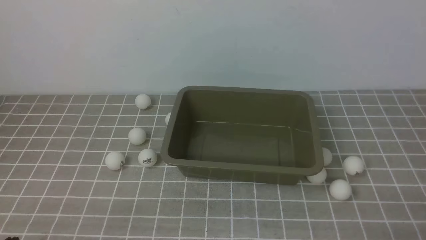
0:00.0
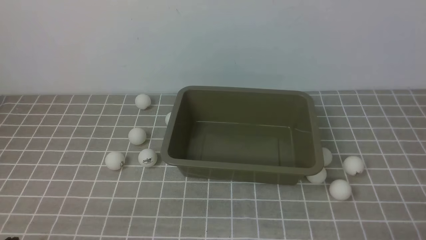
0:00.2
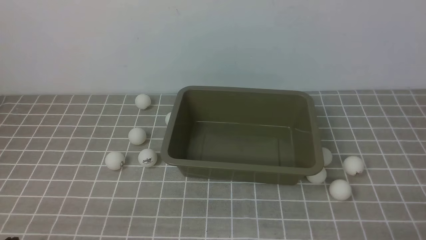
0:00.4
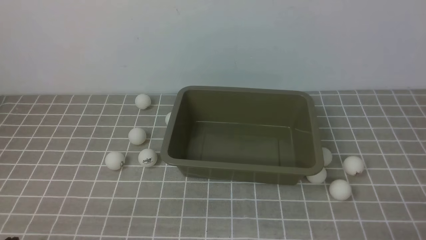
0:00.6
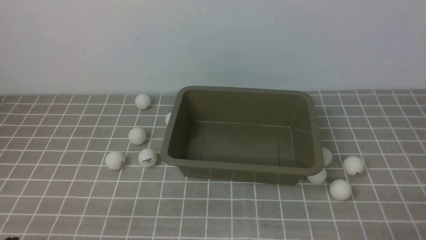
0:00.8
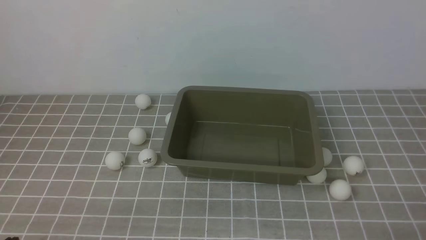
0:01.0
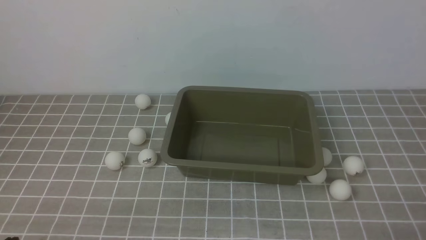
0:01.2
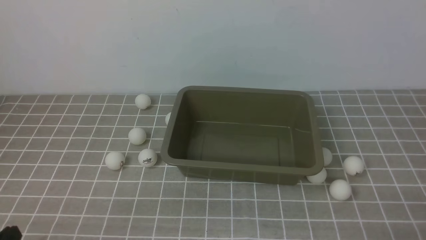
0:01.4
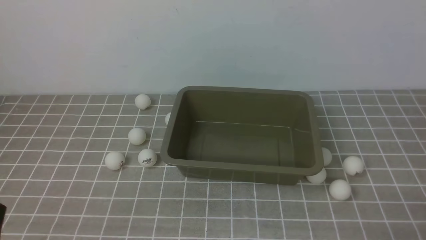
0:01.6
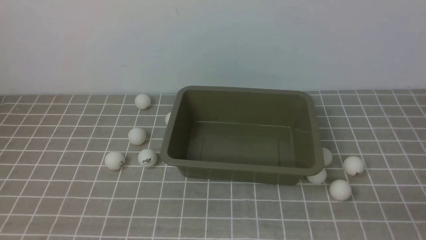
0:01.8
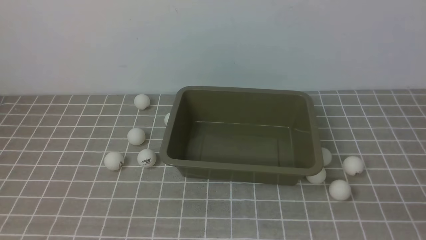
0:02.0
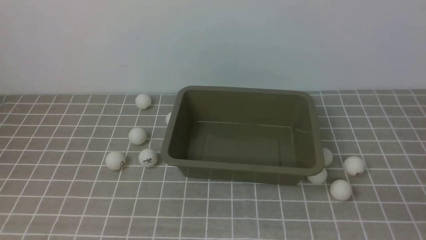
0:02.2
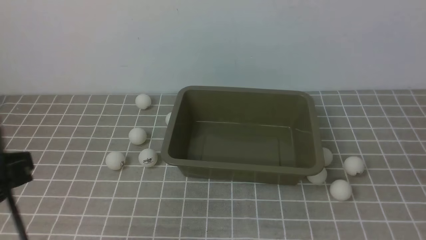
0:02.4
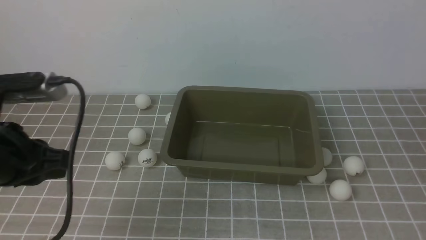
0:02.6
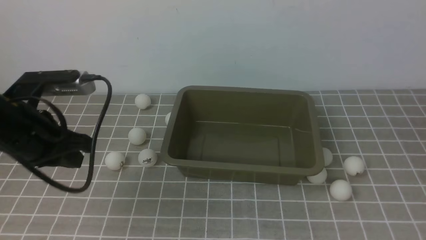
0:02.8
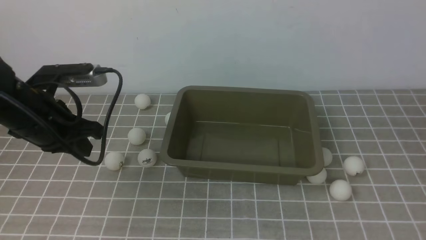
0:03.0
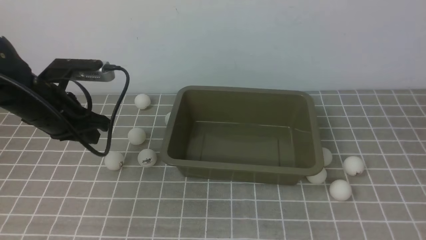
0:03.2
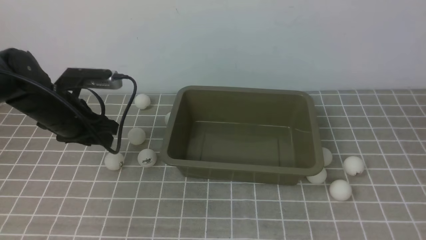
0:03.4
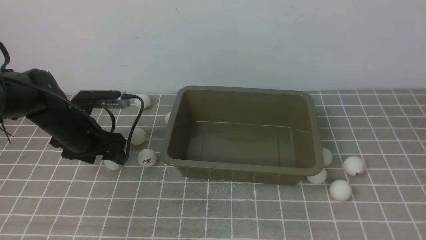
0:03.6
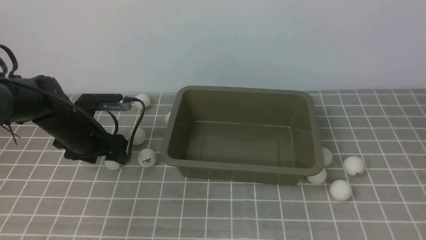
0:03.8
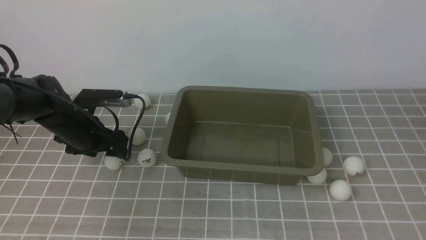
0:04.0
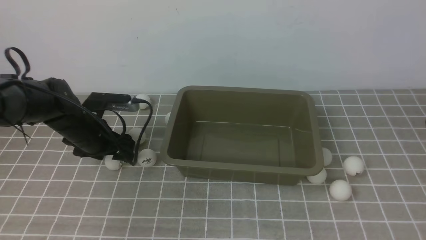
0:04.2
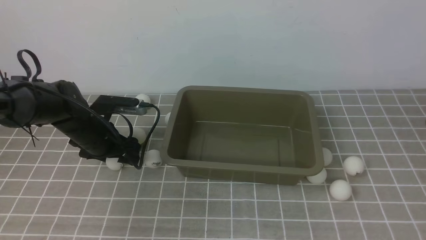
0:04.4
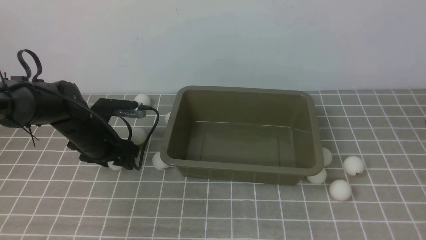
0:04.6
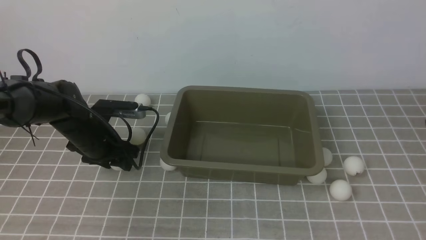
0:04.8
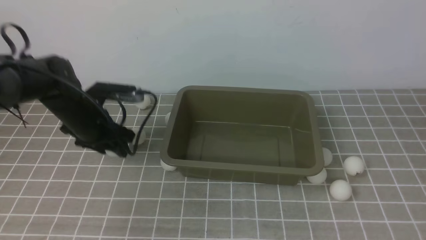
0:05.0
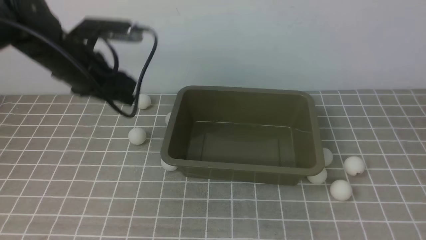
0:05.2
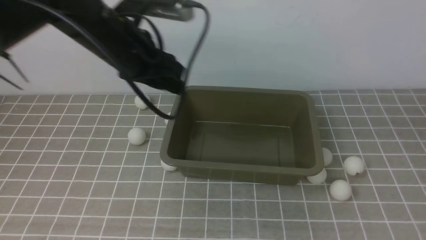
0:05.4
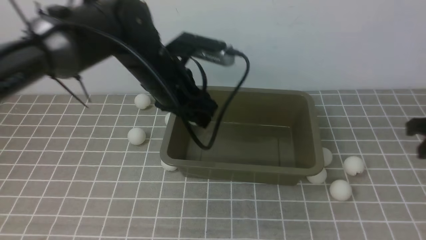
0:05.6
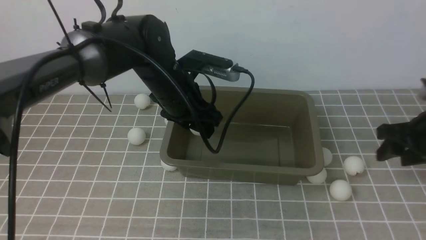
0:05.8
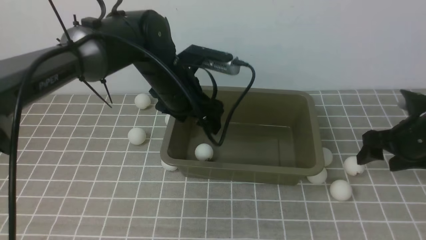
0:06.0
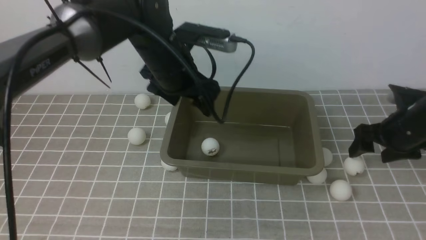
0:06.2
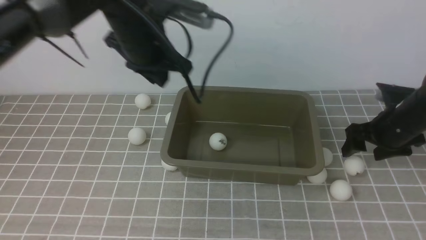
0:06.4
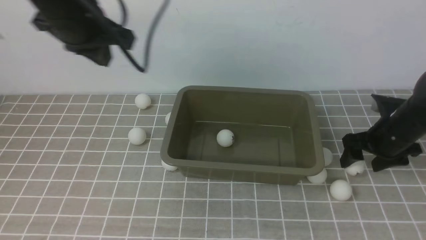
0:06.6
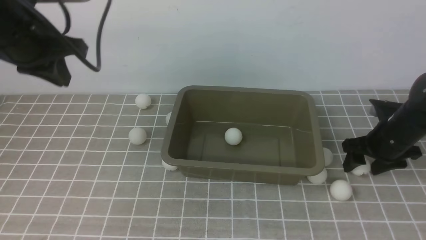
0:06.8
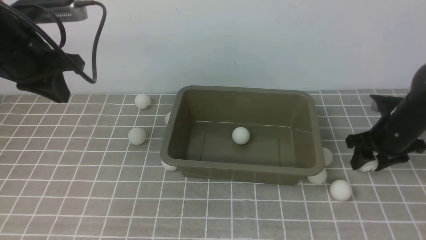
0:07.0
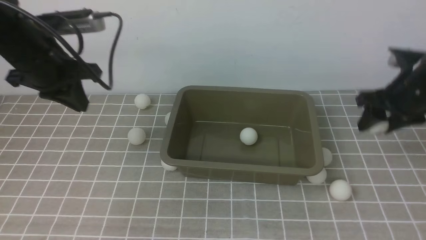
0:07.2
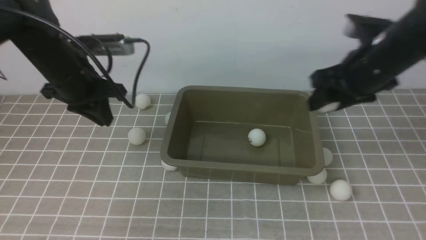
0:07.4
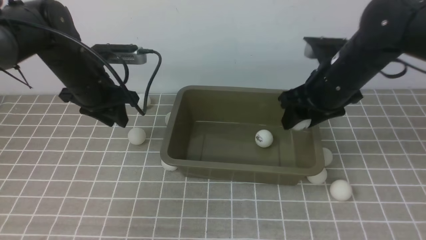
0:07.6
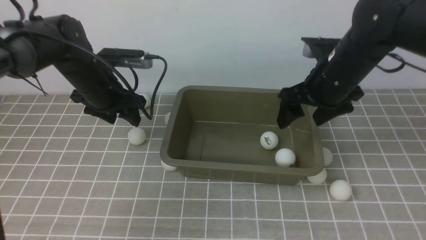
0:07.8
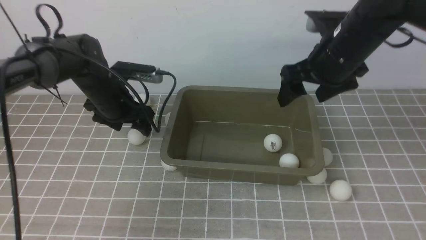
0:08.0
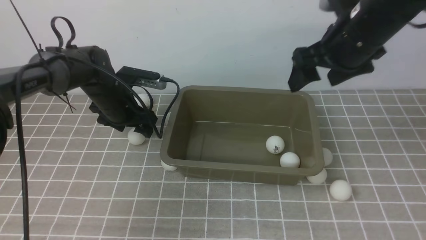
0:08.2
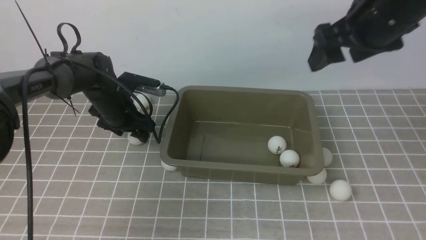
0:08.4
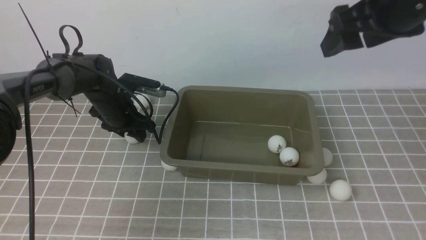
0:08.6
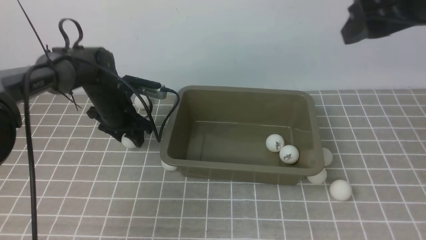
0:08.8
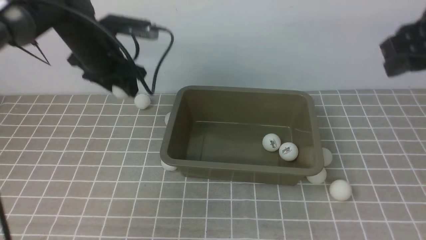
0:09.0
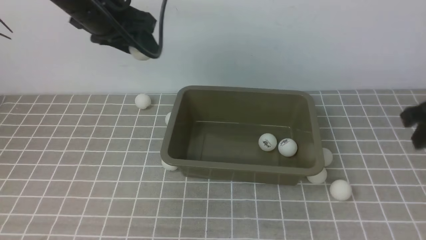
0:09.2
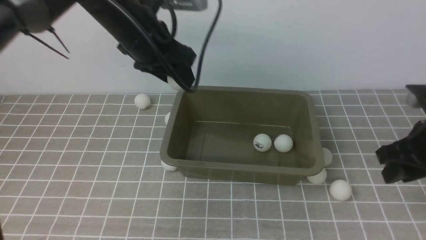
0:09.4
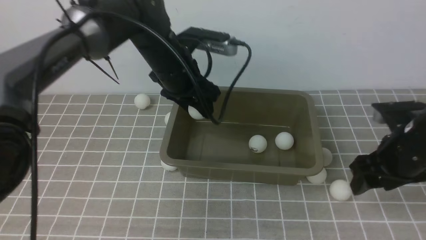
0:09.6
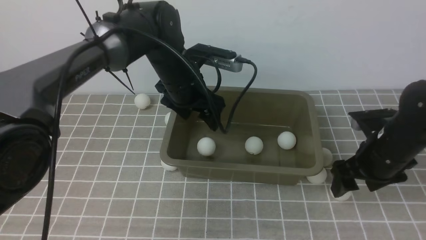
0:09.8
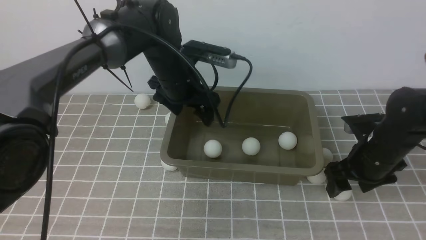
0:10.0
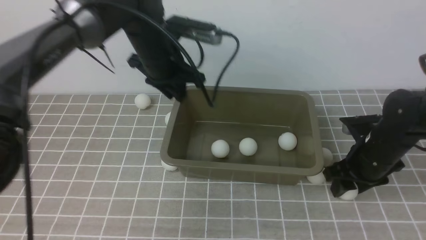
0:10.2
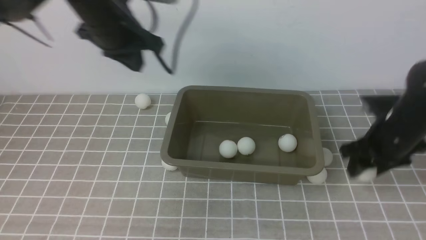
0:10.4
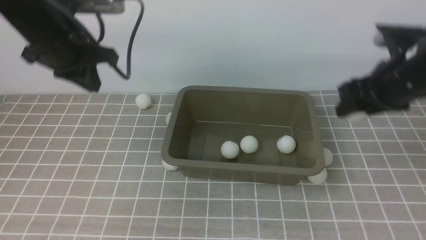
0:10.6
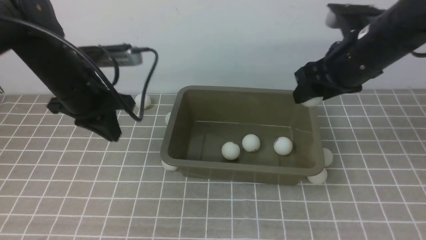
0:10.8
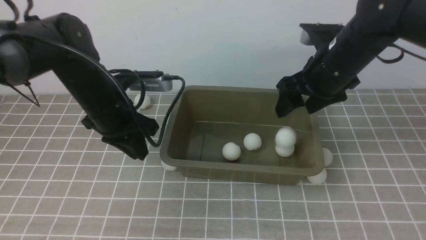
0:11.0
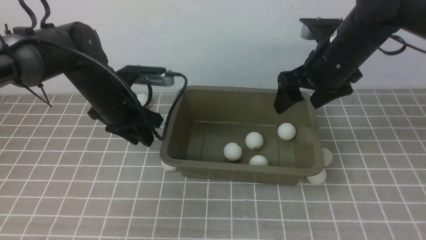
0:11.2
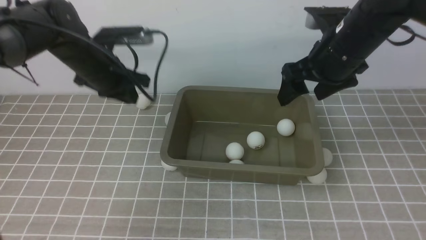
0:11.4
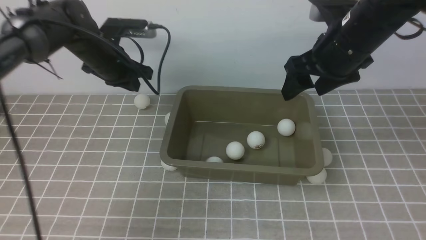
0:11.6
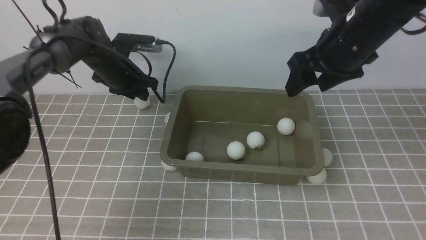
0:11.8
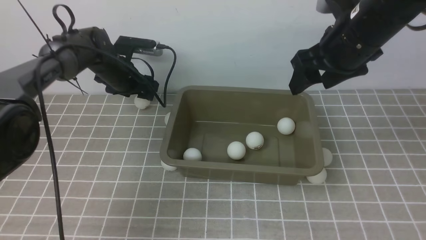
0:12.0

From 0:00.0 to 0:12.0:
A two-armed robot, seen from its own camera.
Step, from 0:00.0 to 0:05.0: use the left arm to clamp the table tennis ball closest to it.
Step, from 0:05.2 to 0:05.8: use the left arm to put the table tennis ball into the box.
Step, from 0:06.2 to 0:07.8: use the right arm to put the table tennis ball into the box.
Step, from 0:08.0 to 0:08.8: use the left arm to clamp the table tennis ball closest to it.
Step, from 0:09.0 to 0:09.6: use the left arm to put the table tennis ball into the box.
Step, from 0:09.8 to 0:10.4: use the right arm to clamp the table tennis ball closest to it.
Step, from 0:10.6 to 0:11.0: use the right arm to put the table tennis ball into the box.
From 0:01.6 to 0:03.0: The right gripper is displaced upward and forward by about 20 cm; the left gripper is displaced forward by some 25 cm.
From 0:03.0 to 0:04.4: The left gripper is displaced downward and forward by approximately 15 cm, and opens its fingers.
From 0:04.4 to 0:06.0: The left gripper is displaced to the right and upward by some 20 cm. Meanwhile the right gripper moves downward and forward, approximately 20 cm, and opens its fingers.
From 0:06.0 to 0:07.6: The left gripper heads to the left, covering approximately 15 cm, and closes its fingers; the right gripper shifts approximately 15 cm to the left and upward.
From 0:07.6 to 0:09.0: The right gripper goes approximately 15 cm upward, to the right and backward. The left gripper reaches about 10 cm downward, then returns, and opens, then closes again.
From 0:09.0 to 0:10.4: The right gripper is displaced downward by approximately 15 cm, while the left gripper goes to the right and returns, roughly 10 cm each way, and closes its fingers.
From 0:10.4 to 0:12.0: The left gripper goes roughly 20 cm downward and forward, and opens its fingers. The right gripper heads upward and to the left, covering roughly 15 cm.

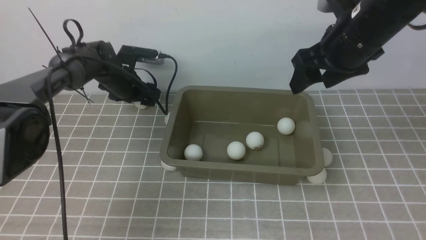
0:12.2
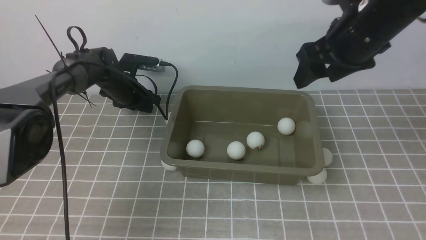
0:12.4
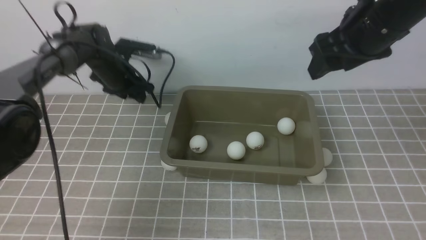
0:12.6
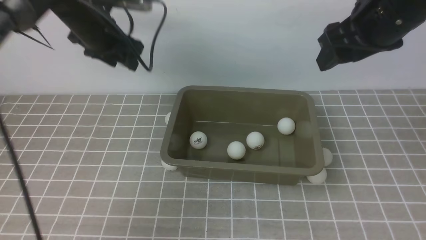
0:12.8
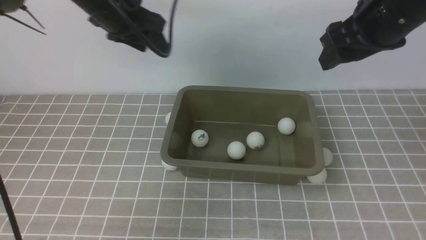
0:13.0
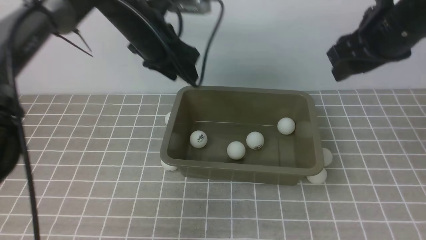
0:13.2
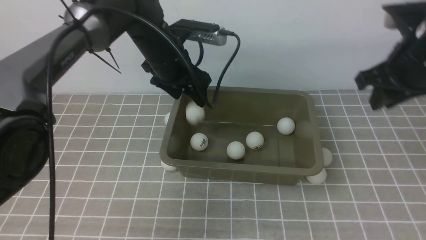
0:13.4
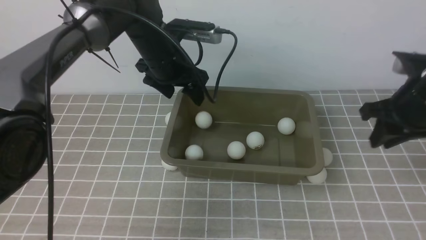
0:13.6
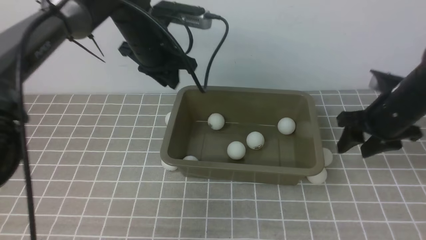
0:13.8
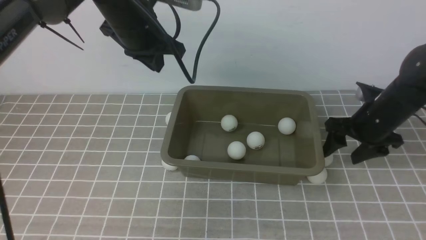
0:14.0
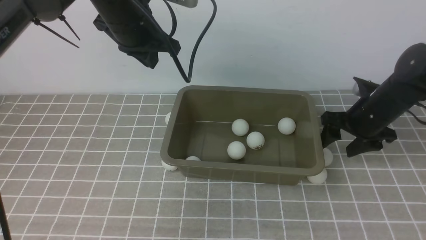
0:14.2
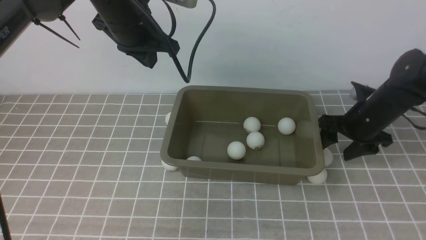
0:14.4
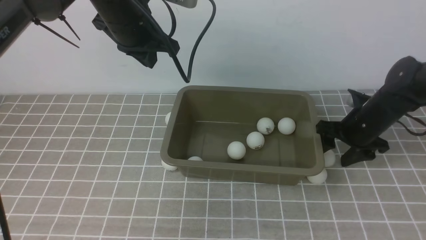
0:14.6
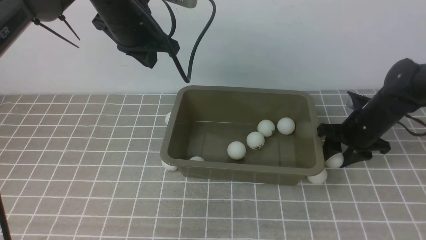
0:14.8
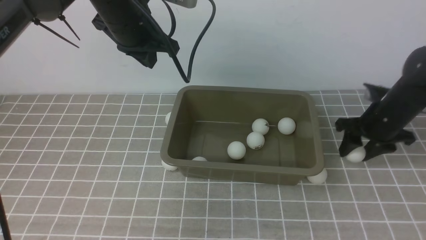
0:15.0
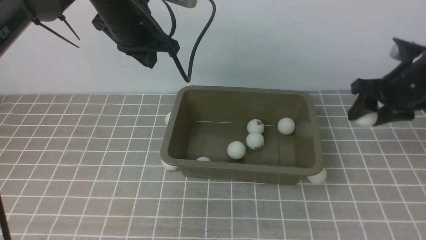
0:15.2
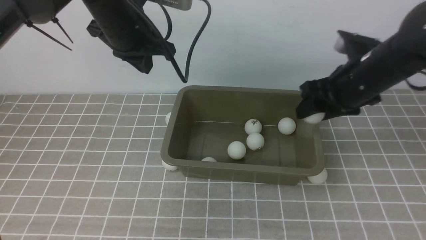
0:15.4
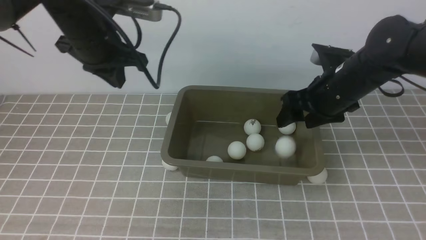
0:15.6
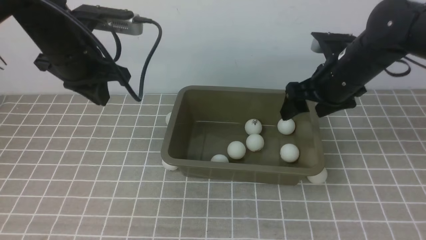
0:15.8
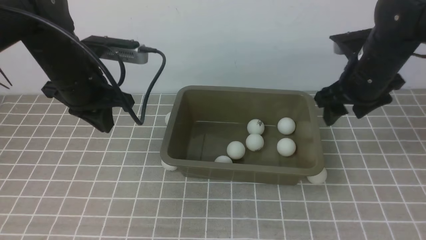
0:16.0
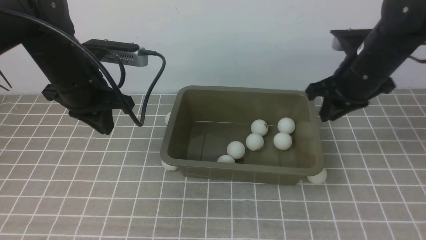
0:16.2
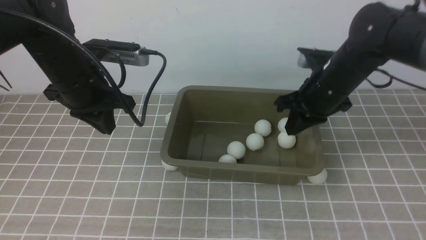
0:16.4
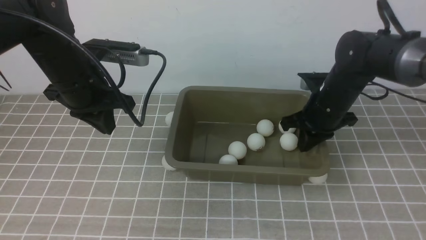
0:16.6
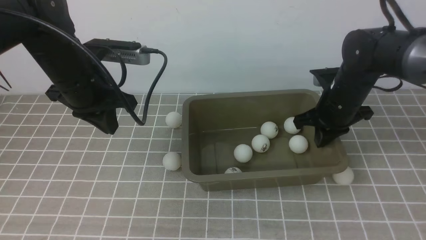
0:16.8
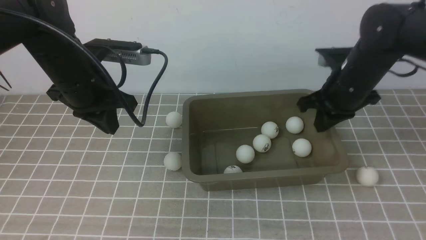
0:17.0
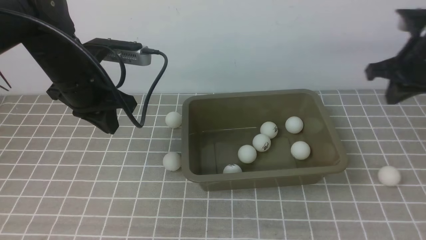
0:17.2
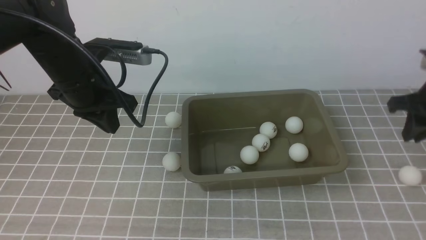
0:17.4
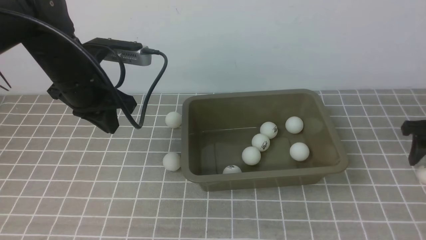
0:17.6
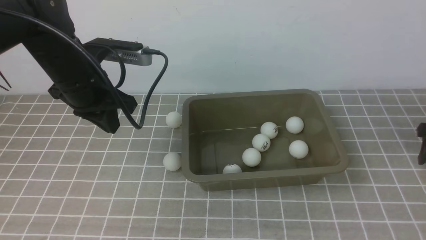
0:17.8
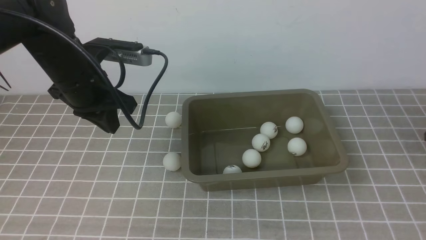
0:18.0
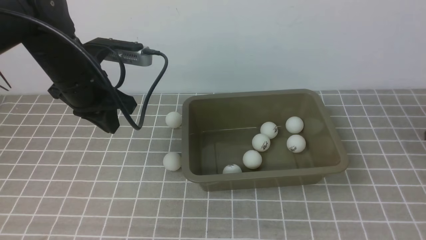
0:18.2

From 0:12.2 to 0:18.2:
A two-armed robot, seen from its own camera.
Step, from 0:13.0 to 0:13.4: use the left arm to put the table tennis ball into the box.
Step, from 0:13.8 to 0:15.0: use the right arm to clamp the table tennis ball closest to it.
Step, from 0:15.2 to 0:15.6: use the right arm to put the table tennis ball into the box.
From 0:12.2 to 0:13.8: The left gripper goes about 20 cm upward, backward and to the right, and closes its fingers. Meanwhile the right gripper goes approximately 15 cm downward and to the right.
From 0:13.8 to 0:15.2: The right gripper travels downward and back again, approximately 5 cm each way.
From 0:15.2 to 0:16.6: The right gripper travels to the left by about 5 cm, and closes its fingers, while the left gripper heads to the left, backward and downward, covering some 10 cm.
From 0:16.6 to 0:18.2: The right gripper travels to the right by some 25 cm, and opens up.
